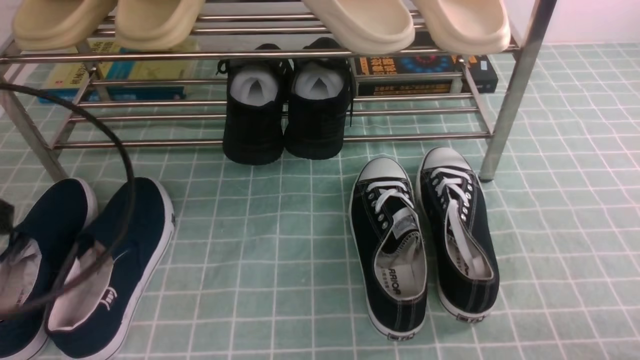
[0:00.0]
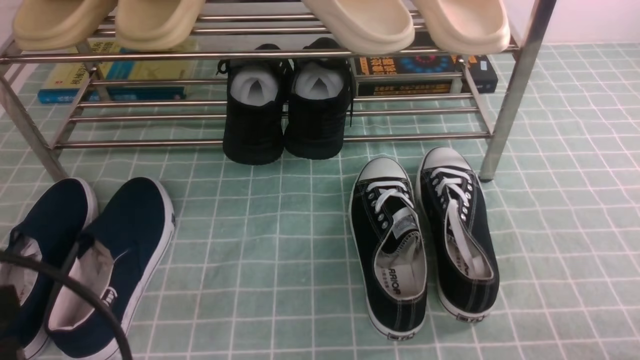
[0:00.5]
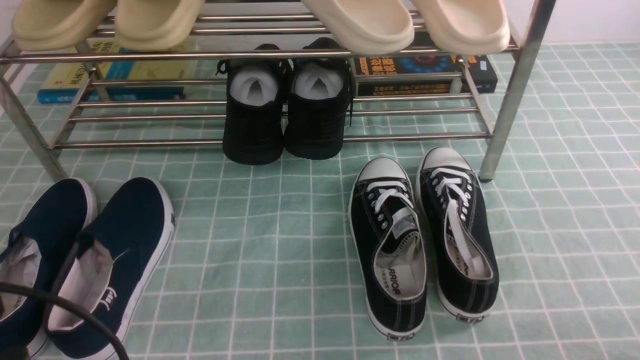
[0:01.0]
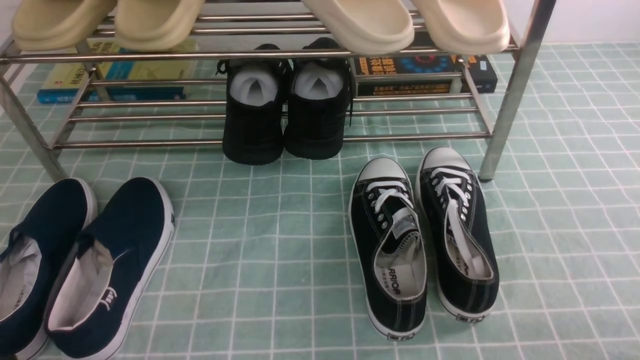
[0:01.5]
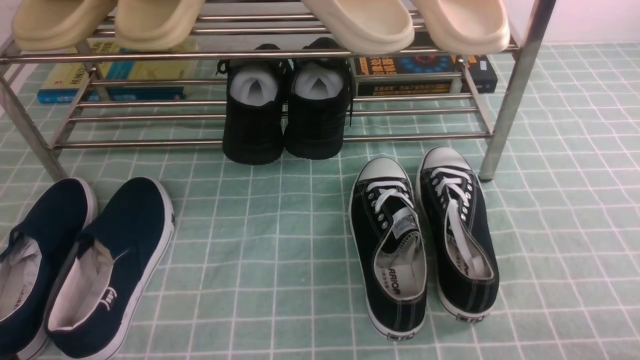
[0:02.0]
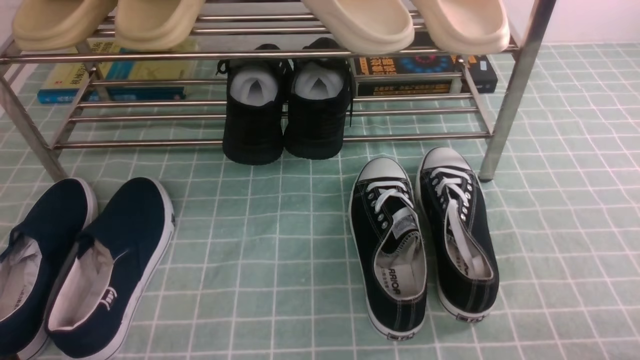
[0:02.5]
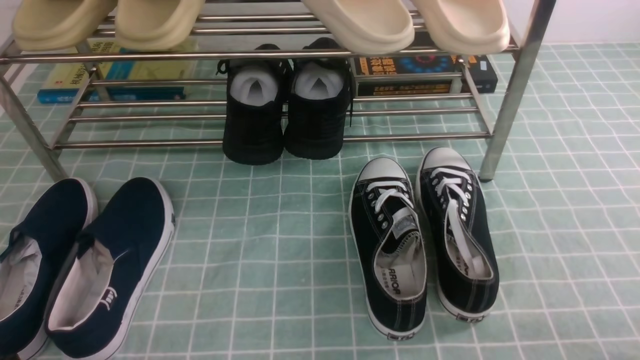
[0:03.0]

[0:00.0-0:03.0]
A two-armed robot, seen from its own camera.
0:00.0 to 0:01.5: The left gripper heads downward and backward, covering about 20 cm.
